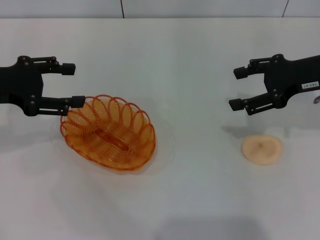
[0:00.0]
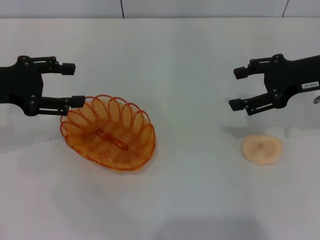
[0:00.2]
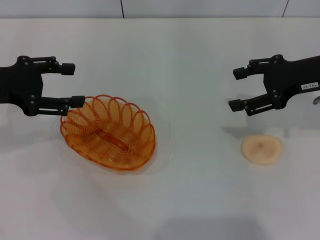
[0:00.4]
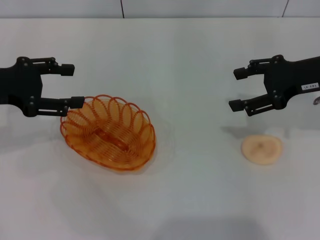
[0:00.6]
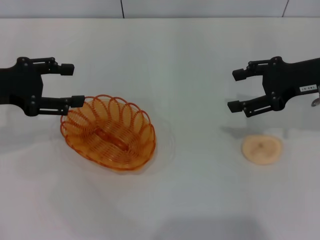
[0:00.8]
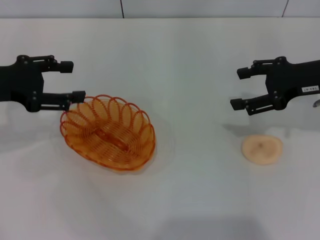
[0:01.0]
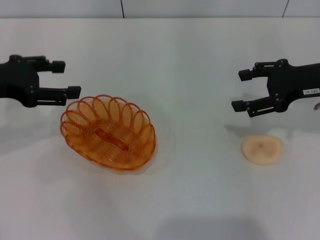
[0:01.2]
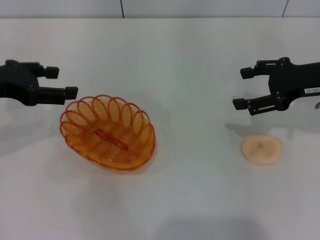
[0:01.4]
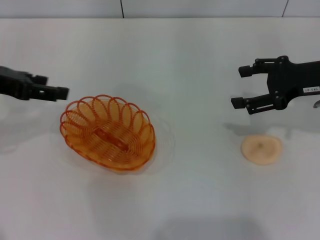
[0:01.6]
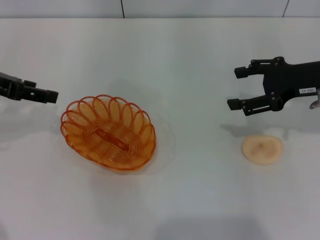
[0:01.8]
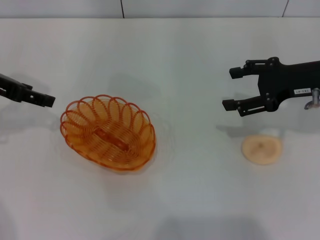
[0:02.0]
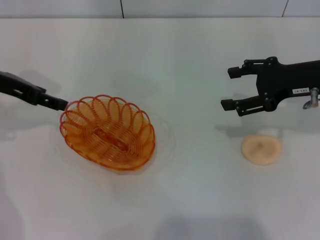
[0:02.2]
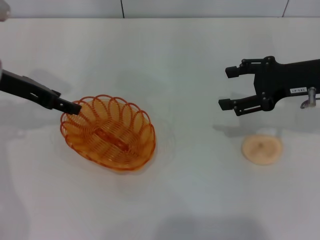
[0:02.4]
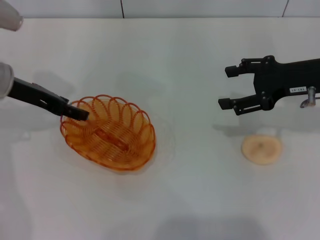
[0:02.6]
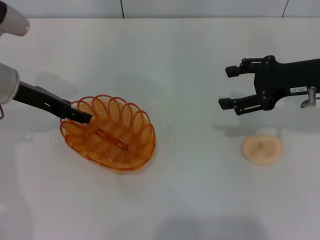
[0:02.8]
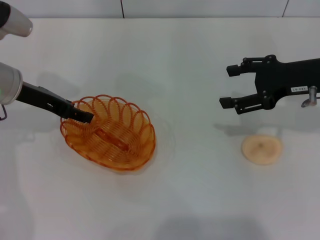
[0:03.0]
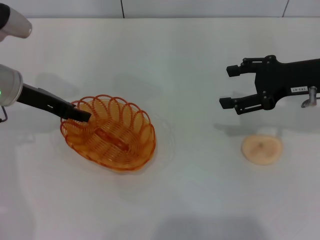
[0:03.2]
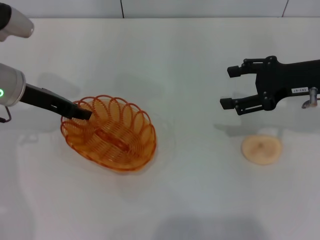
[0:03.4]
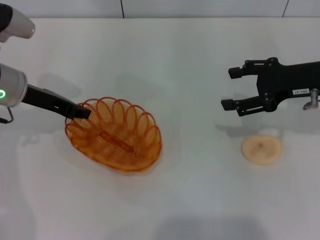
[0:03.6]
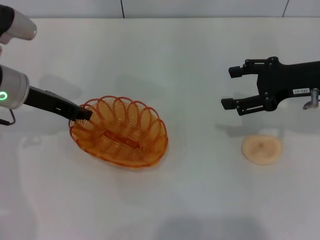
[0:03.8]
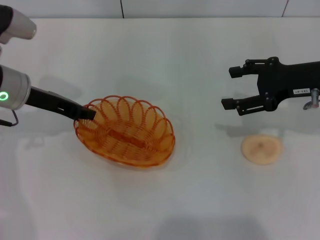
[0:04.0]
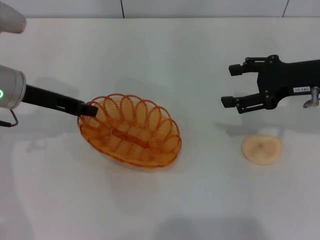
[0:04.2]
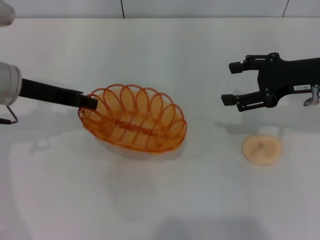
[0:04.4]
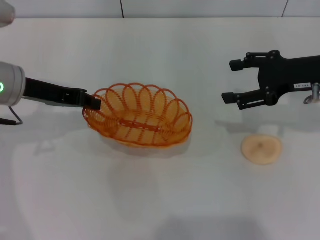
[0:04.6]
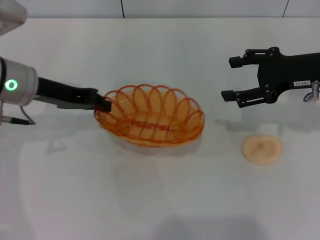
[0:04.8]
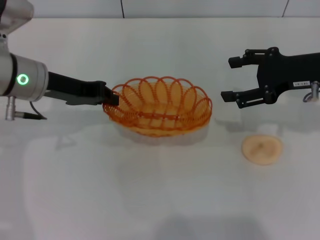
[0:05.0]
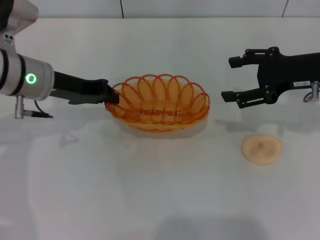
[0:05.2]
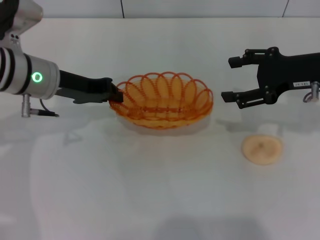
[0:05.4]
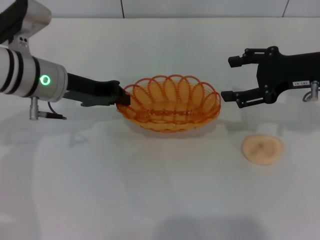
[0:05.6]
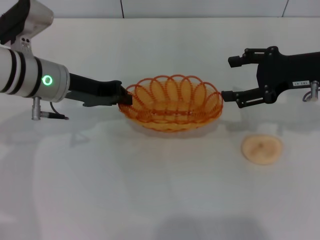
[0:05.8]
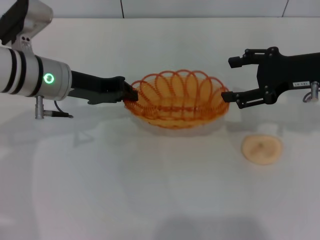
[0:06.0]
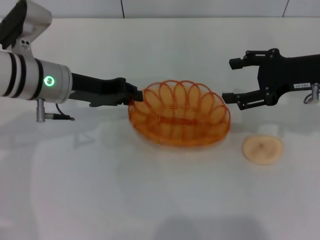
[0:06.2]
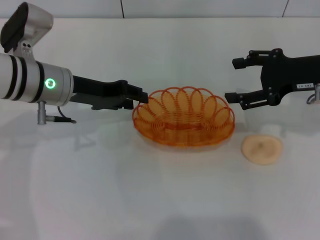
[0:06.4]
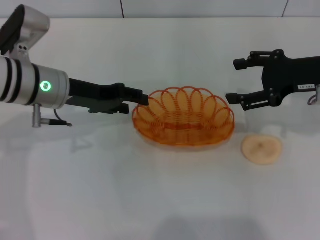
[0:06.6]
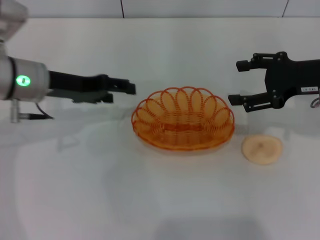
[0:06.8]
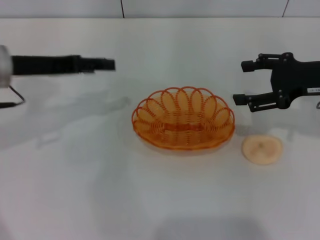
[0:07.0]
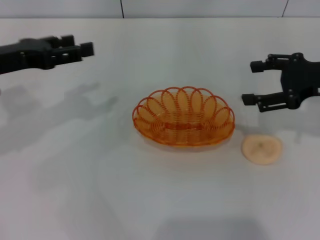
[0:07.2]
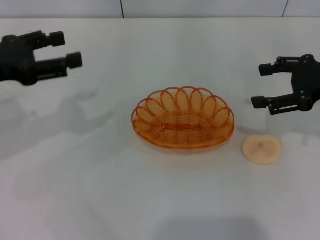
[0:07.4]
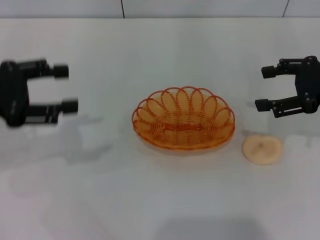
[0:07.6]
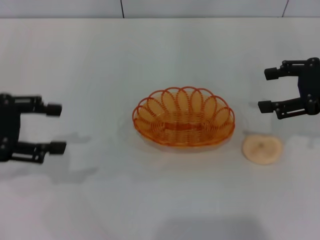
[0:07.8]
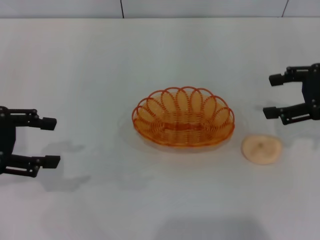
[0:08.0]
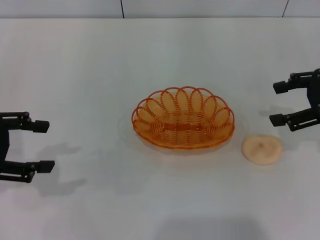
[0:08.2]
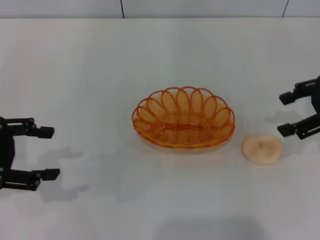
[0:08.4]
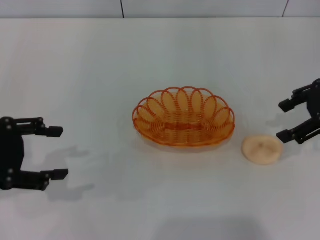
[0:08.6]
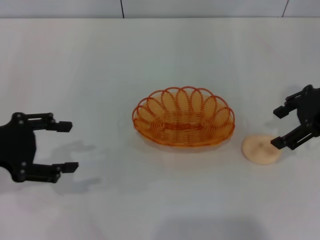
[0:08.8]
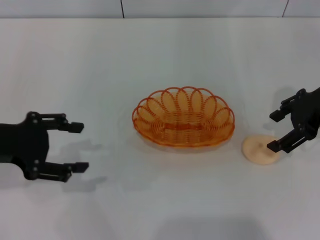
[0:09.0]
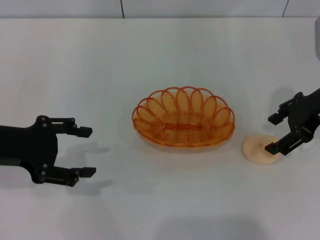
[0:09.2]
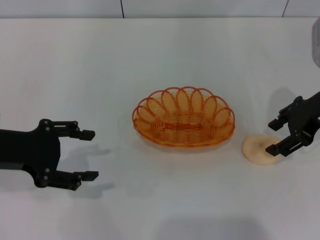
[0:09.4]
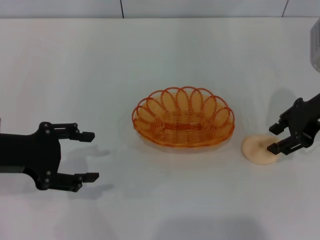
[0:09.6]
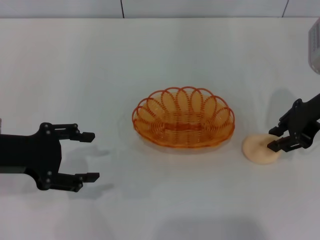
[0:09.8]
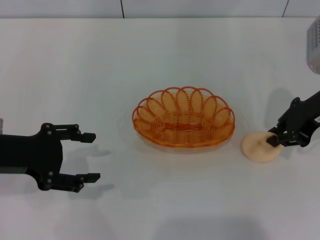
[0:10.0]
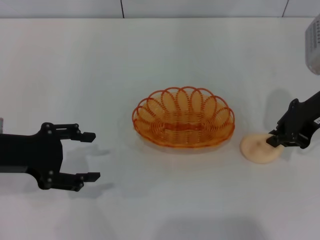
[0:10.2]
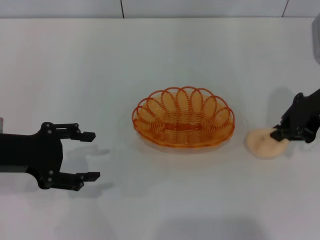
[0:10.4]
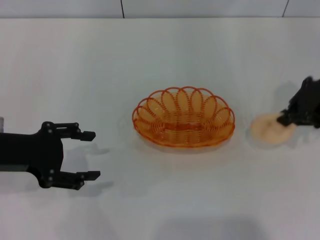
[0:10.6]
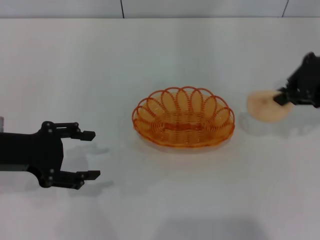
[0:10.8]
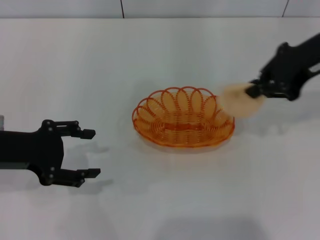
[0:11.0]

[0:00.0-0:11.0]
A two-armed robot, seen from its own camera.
Step, 0:00.0 to 0:04.4: Pick up the basket with the left gripper.
Step, 0:04.6 to 0:06.6: Place the basket in the center of view with the left gripper.
Step, 0:06.8 to 0:10.6: Pick up the egg yolk pastry with the right gripper.
0:01.6 to 0:03.2: The left gripper travels downward and forward by approximately 10 cm.
0:03.2 to 0:04.8: The left gripper closes up.
0:04.8 to 0:06.2: The grippers move only a little.
0:06.2 to 0:07.8: The left gripper goes some 15 cm to the left, backward and upward, and opens, while the right gripper ends up about 5 cm from where it was.
0:07.8 to 0:09.4: The left gripper ends up some 5 cm from where it was. Meanwhile the right gripper shifts about 5 cm to the left.
0:09.4 to 0:11.0: The right gripper heads upward, covering about 10 cm, and closes.

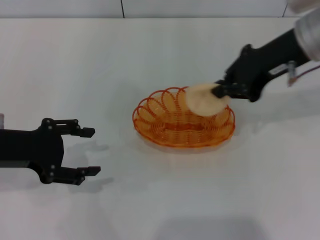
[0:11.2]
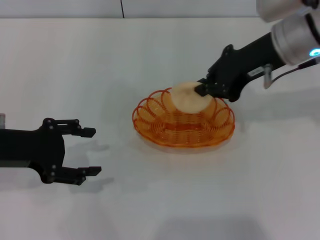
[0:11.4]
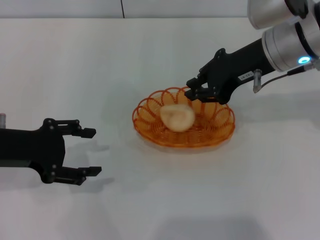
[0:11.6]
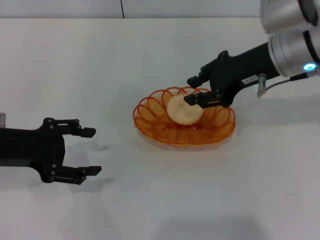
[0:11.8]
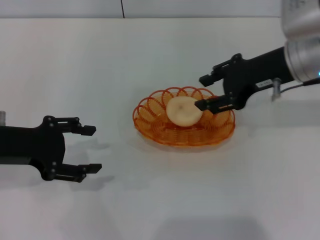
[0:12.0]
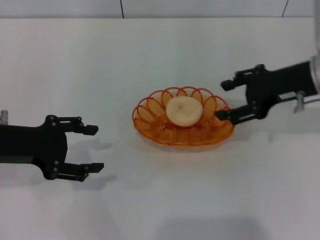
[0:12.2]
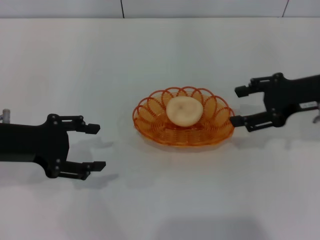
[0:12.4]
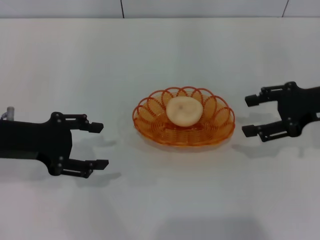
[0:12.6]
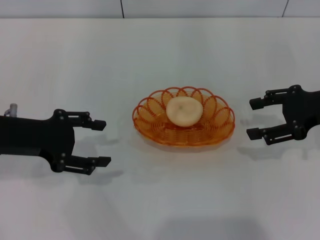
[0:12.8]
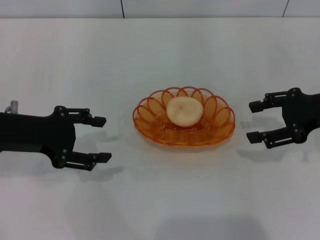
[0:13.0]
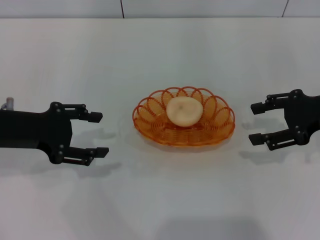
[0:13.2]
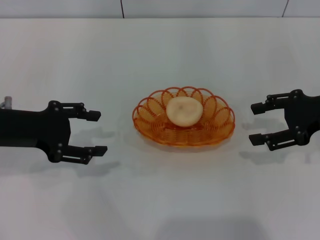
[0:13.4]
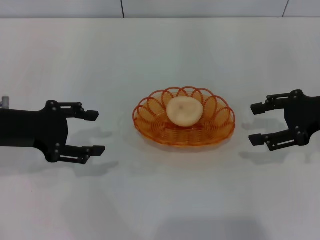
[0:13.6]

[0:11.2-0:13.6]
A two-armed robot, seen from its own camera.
Step, 0:11.2 to 0:12.0: Place the egg yolk pastry into the basket with the right gripper.
0:11.2 to 0:12.4: The right gripper shifts some 10 cm downward and to the right, and opens.
0:12.4 to 0:13.6: The grippers move only a little.

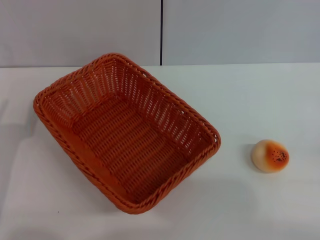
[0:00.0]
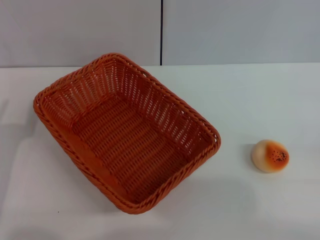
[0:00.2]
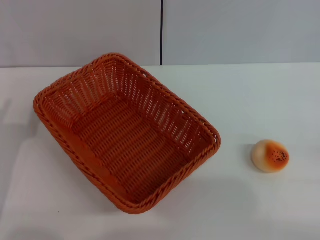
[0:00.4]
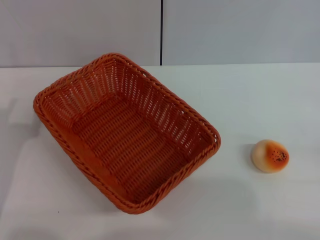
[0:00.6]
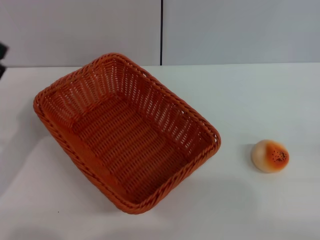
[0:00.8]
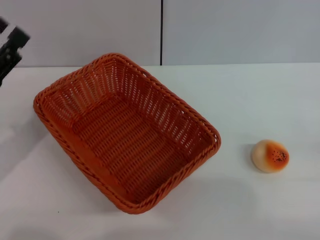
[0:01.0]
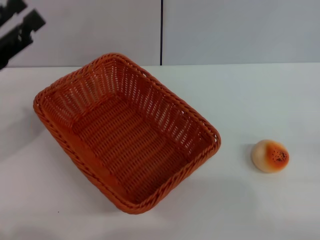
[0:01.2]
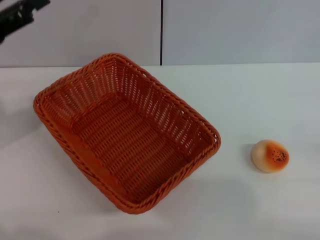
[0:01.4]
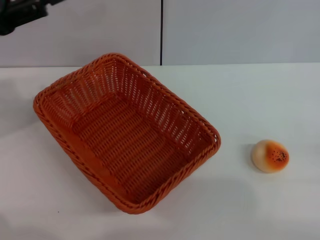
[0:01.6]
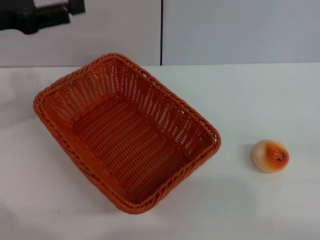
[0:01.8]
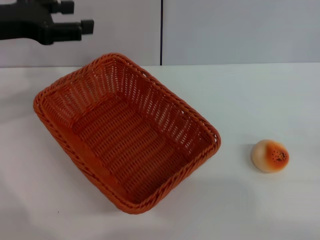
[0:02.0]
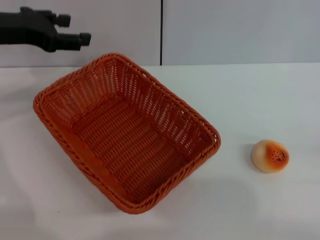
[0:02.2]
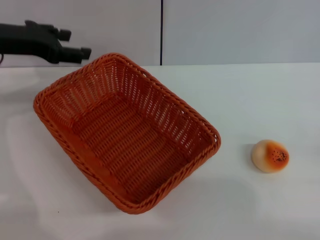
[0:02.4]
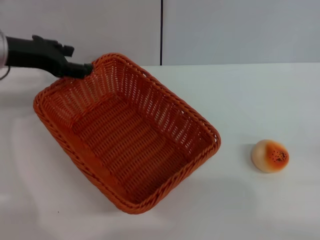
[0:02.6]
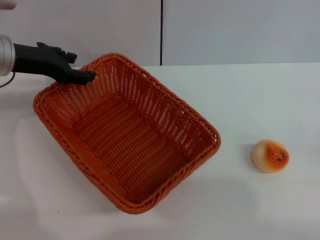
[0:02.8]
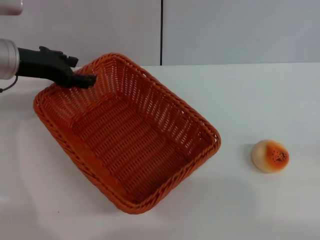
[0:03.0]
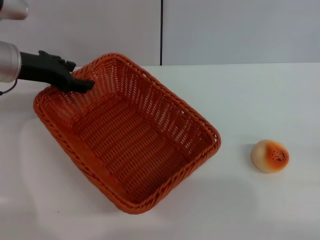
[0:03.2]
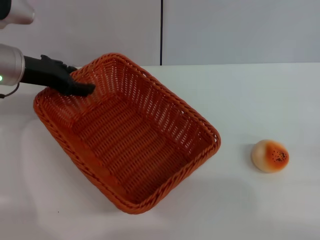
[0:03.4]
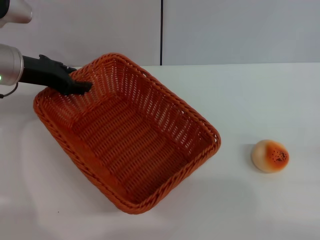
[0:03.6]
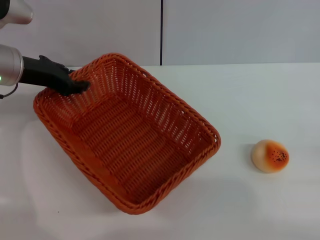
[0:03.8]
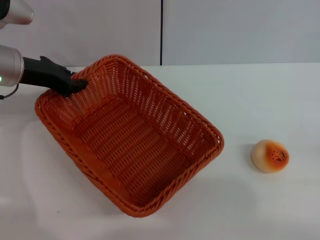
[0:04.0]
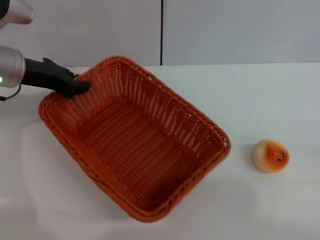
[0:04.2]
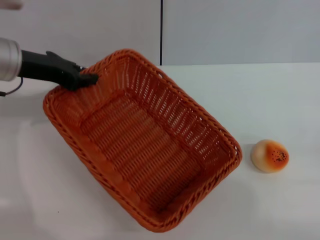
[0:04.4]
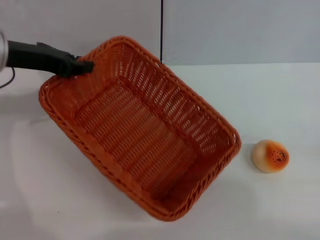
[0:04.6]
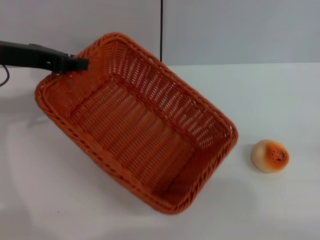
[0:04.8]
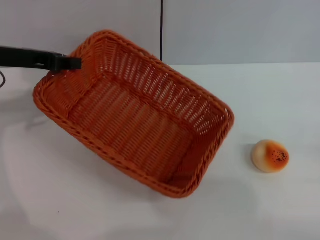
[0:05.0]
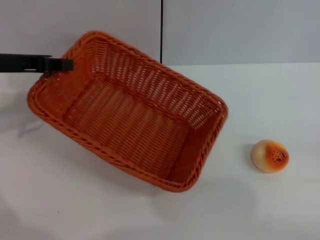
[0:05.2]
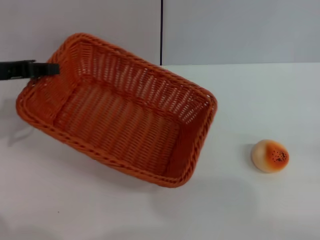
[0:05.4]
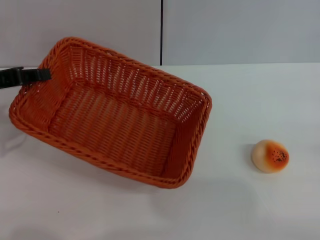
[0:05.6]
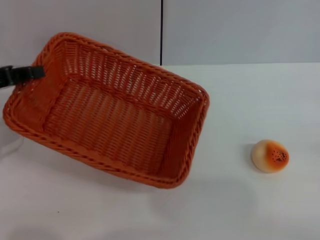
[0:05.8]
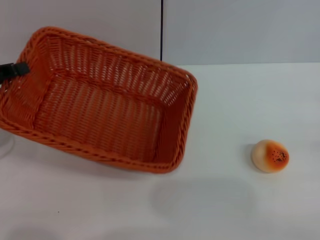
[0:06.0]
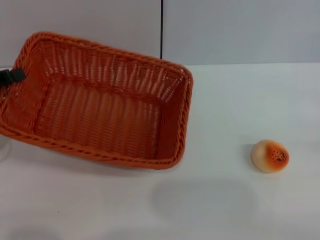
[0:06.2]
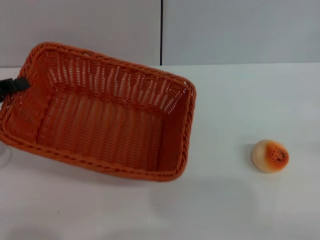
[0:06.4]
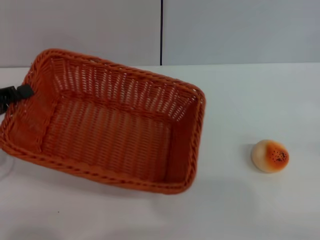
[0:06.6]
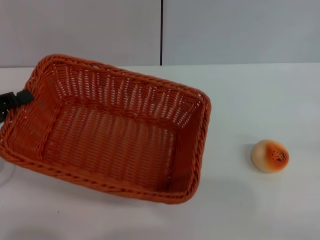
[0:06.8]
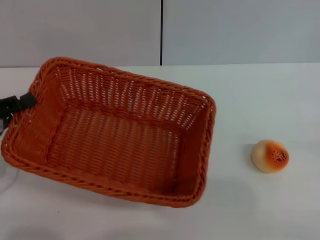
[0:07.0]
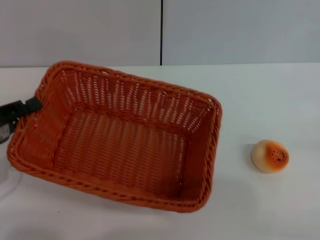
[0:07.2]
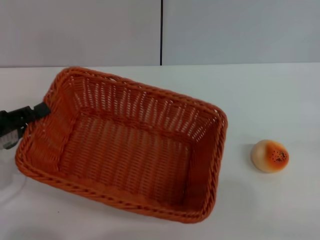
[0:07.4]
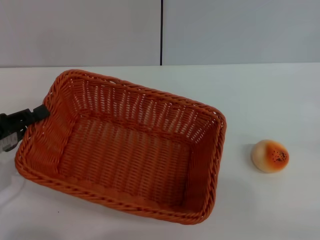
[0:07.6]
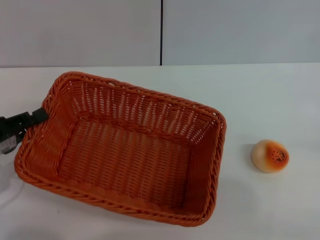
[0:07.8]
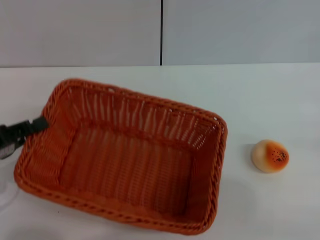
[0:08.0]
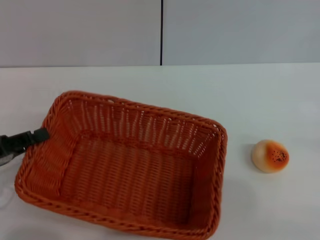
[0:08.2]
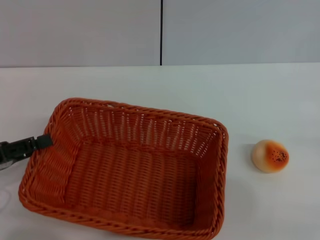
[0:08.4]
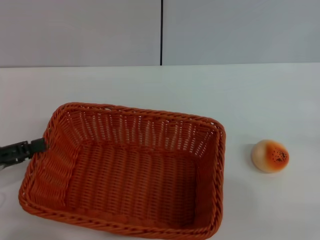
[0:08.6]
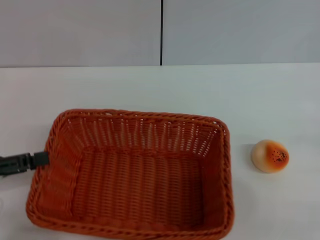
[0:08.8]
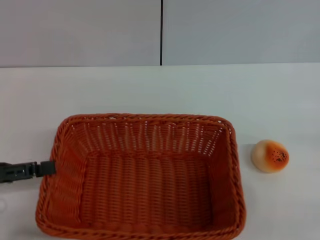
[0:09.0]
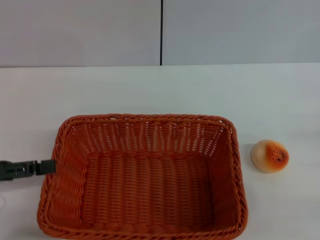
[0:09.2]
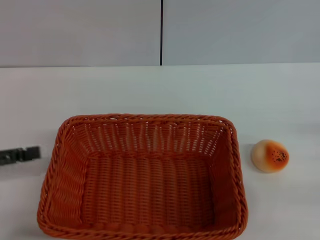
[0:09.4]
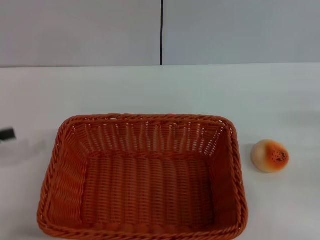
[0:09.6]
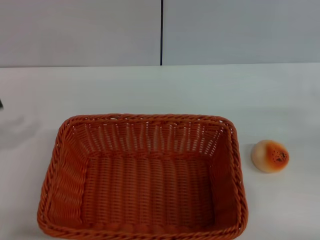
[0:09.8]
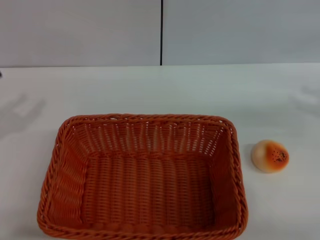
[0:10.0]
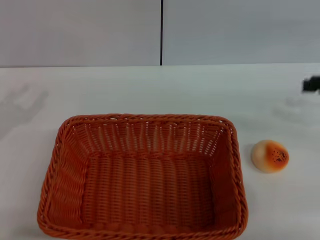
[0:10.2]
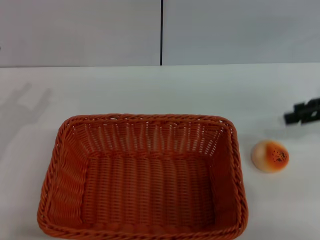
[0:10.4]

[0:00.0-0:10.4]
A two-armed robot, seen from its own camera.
Step, 0:00.0 to 0:09.4: Move the basket to the center of view with the left gripper.
0:00.0 to 0:01.4: The left gripper goes roughly 15 cm upward and forward.
0:01.4 to 0:03.0: The left gripper travels forward and to the right by roughly 10 cm.
0:03.0 to 0:04.4: The left gripper closes.
0:04.4 to 0:06.0: The left gripper shifts roughly 15 cm to the left and backward.
0:06.0 to 0:07.4: The left gripper travels downward and backward by about 10 cm.
0:07.4 to 0:09.0: The left gripper opens its fingers.
0:09.0 to 0:10.4: The right gripper travels forward and upward by roughly 20 cm.
